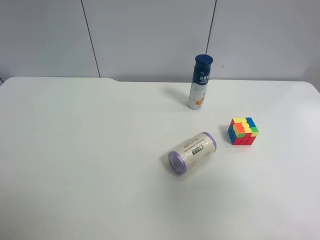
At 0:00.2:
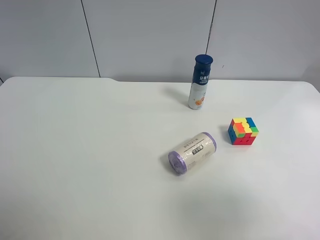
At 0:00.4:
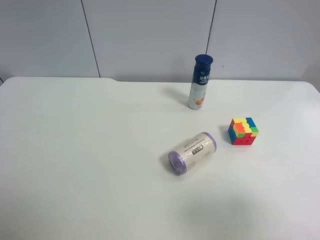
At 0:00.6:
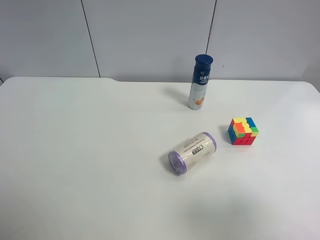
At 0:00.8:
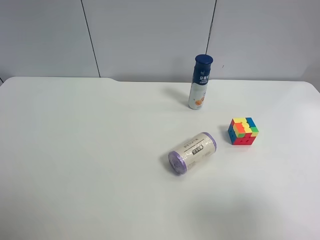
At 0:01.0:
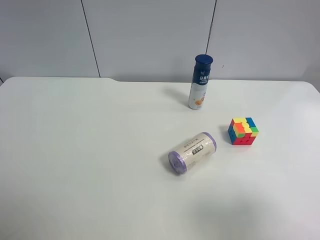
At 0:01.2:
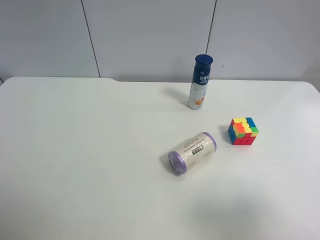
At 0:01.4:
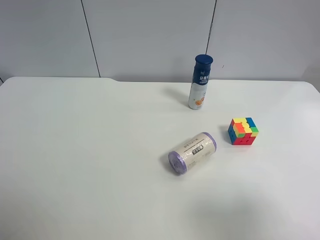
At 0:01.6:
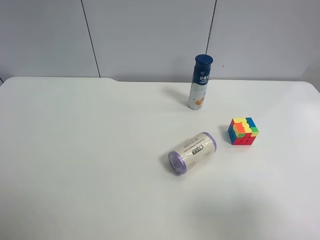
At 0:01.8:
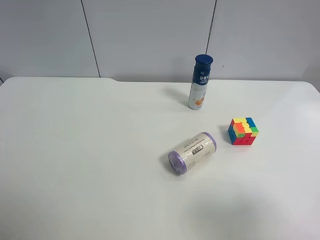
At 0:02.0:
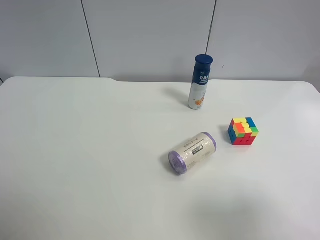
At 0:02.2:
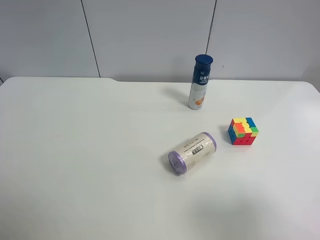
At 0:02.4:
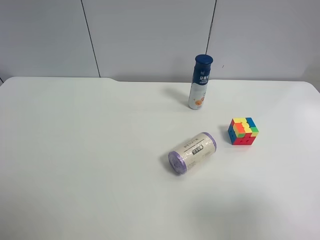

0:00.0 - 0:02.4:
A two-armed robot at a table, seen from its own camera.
Task of the whole recording: use the left gripper to pick up the item and transfer it from the left gripper to the right gripper.
0:00.0 - 0:01.2: The right gripper is displaced downward by roughly 10 cm.
0:01.2 - 0:02.4: Both grippers stay about where they are.

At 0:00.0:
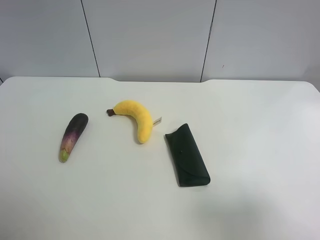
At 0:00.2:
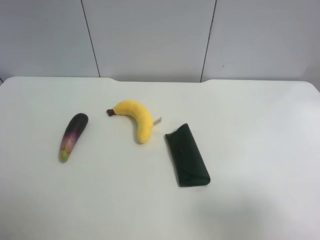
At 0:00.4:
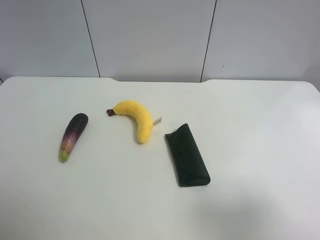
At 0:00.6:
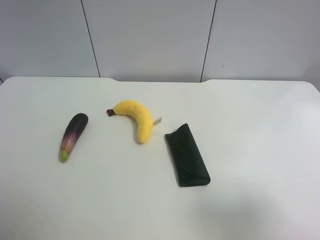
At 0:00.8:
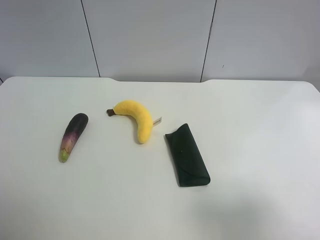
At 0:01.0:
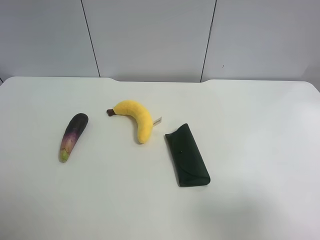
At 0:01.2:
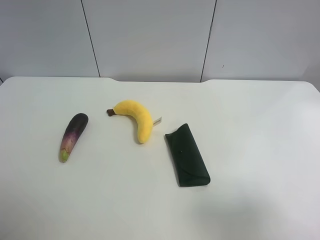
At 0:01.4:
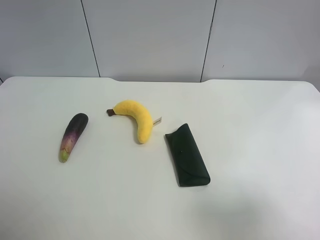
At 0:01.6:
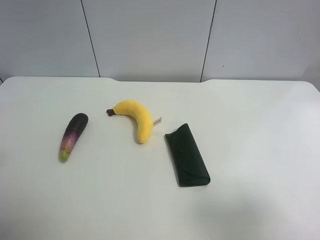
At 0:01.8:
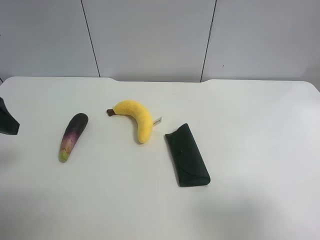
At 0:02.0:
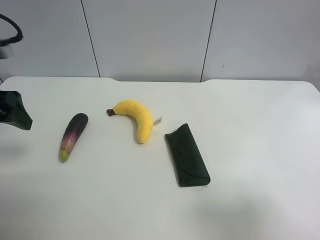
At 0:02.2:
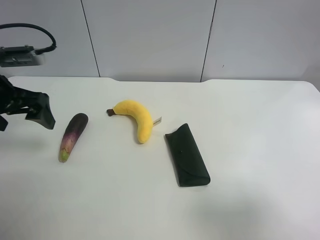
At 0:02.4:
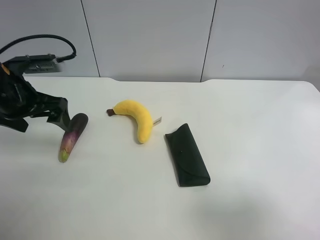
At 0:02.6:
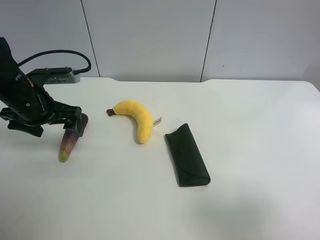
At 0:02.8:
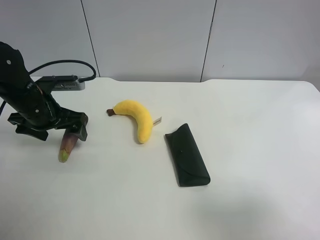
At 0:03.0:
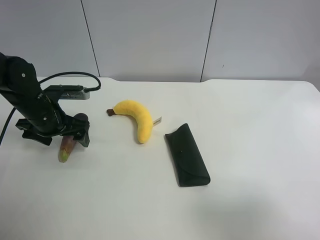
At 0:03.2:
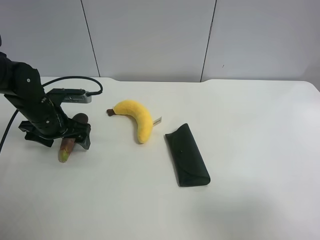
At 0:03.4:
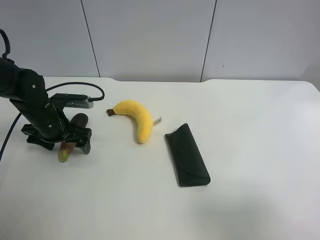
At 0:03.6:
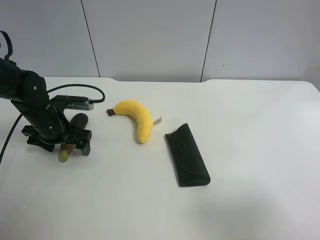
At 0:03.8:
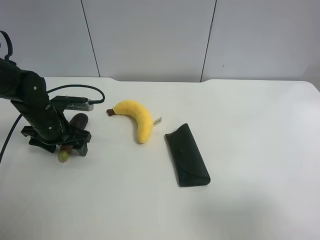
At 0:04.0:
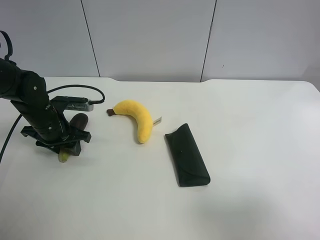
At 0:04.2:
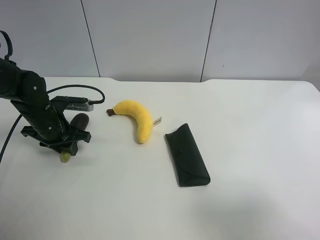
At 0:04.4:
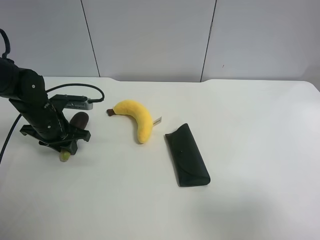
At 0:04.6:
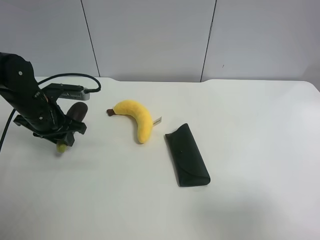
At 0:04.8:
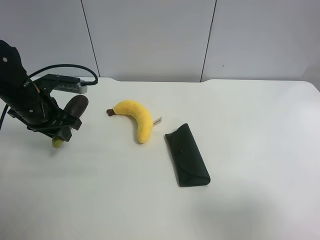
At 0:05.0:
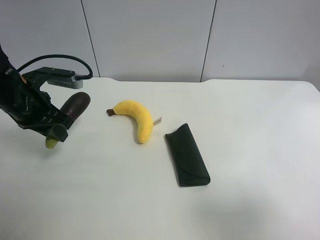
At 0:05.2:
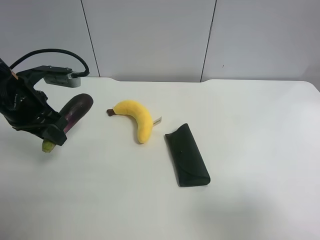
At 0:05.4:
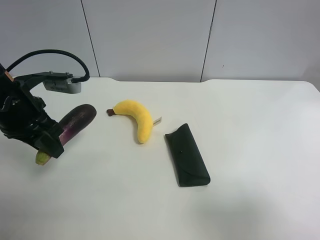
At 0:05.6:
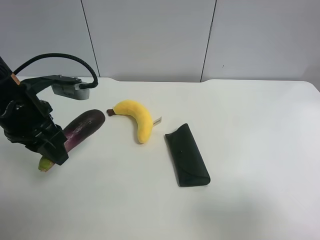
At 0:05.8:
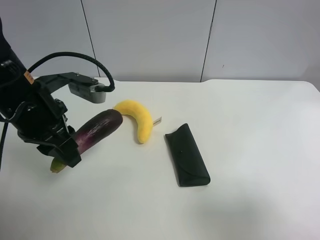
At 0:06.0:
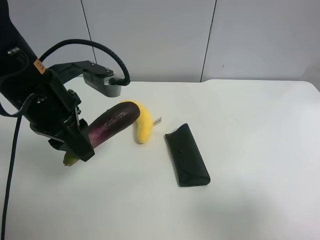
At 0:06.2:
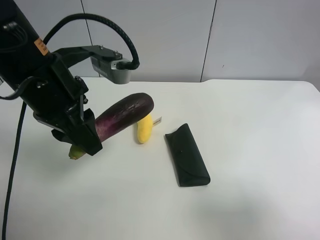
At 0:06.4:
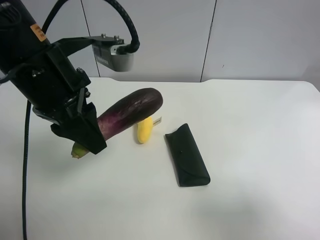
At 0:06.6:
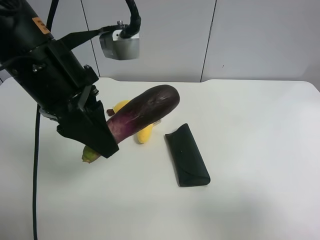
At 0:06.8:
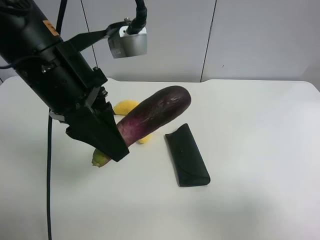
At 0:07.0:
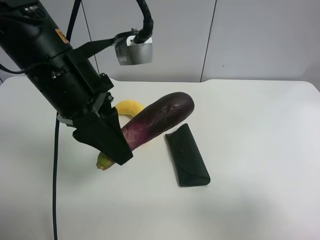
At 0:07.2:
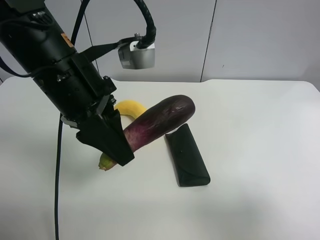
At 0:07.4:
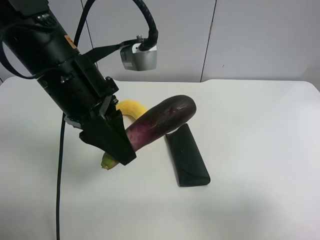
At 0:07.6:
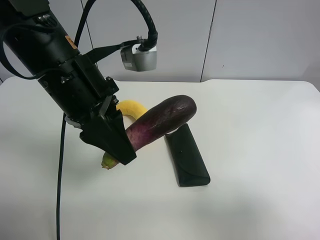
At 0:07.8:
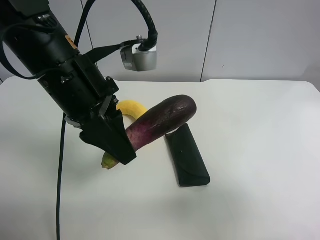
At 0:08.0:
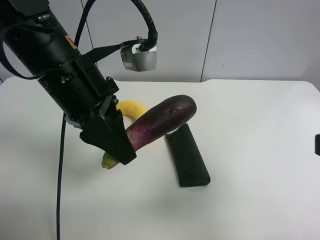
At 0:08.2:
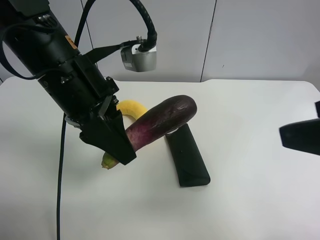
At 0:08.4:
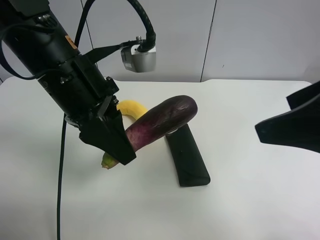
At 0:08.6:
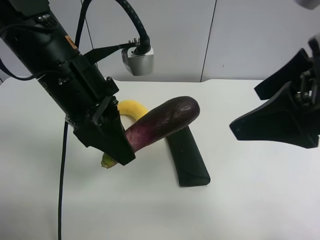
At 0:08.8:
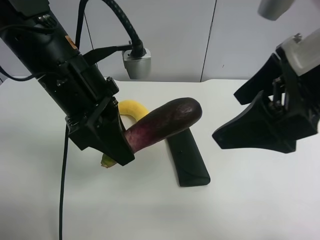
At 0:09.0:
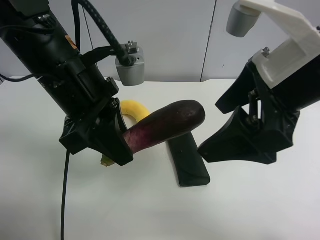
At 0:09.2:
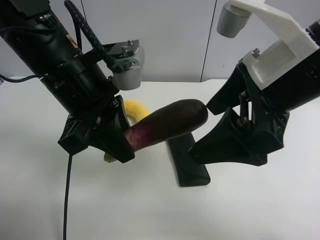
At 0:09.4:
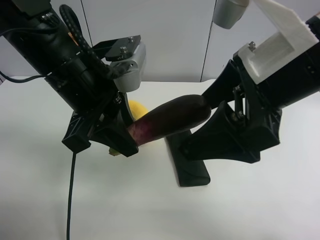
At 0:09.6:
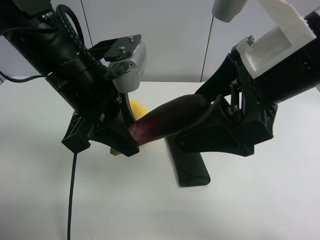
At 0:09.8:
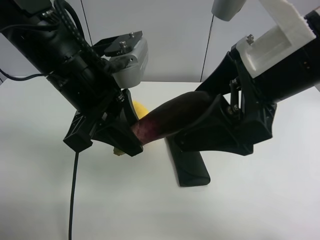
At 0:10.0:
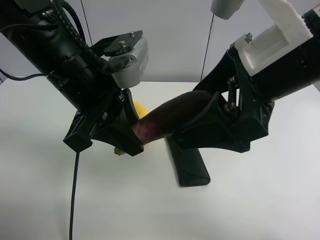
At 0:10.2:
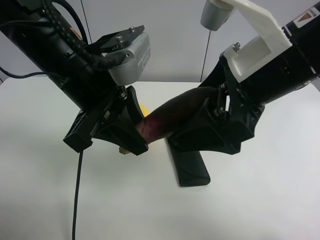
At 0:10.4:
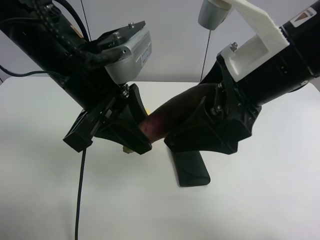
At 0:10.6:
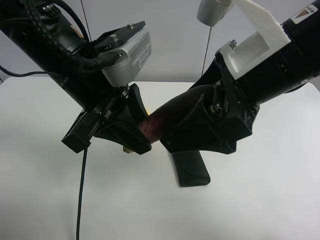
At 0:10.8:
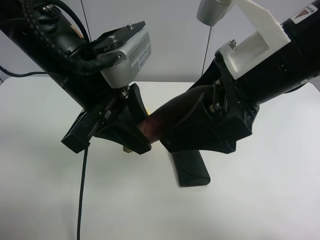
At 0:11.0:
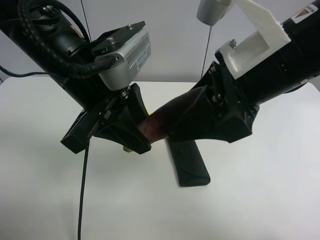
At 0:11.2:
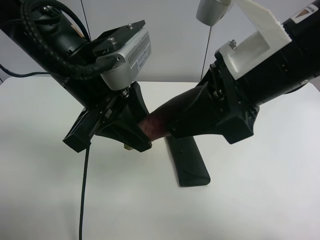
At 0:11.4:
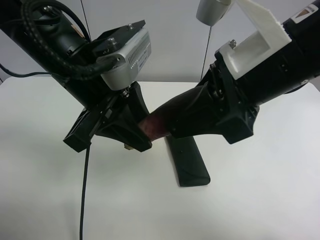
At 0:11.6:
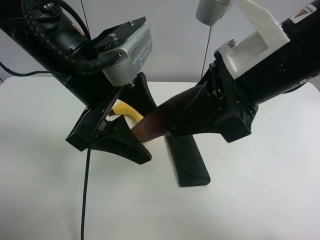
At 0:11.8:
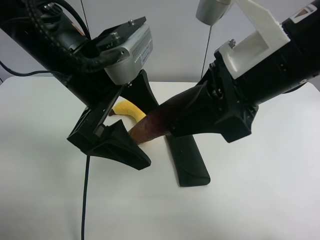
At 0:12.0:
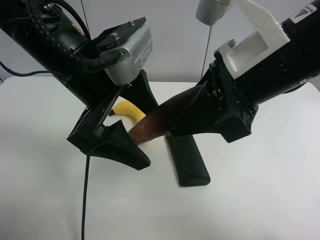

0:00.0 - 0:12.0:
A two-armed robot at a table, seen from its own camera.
Task of the whole recording: use the left gripper to pick up the item and transfer it from the left gripper to the right gripper.
0:01.6 - 0:03.0: The left gripper travels downward and forward by approximately 25 cm.
0:03.0 - 0:04.4: The left gripper closes.
0:04.4 - 0:06.0: The left gripper heads upward, backward and to the right, covering about 20 cm.
0:07.6 - 0:09.0: The right gripper goes roughly 20 cm forward and to the left.
0:10.4 - 0:12.0: The right gripper closes, while the left gripper opens its fingers.

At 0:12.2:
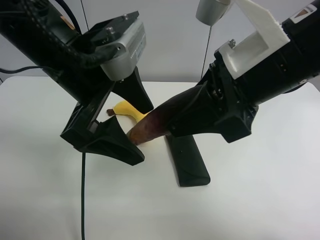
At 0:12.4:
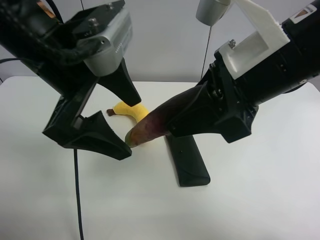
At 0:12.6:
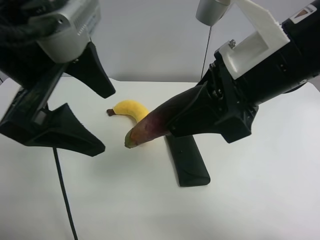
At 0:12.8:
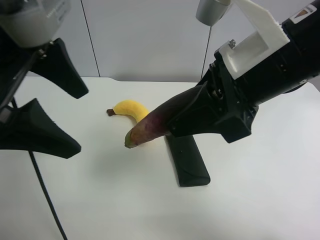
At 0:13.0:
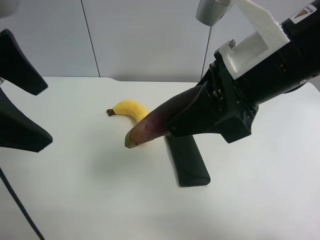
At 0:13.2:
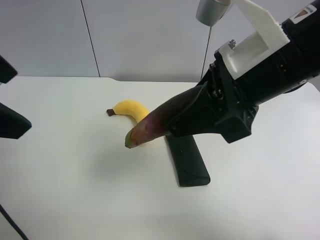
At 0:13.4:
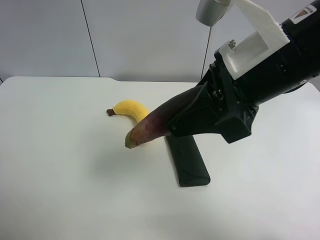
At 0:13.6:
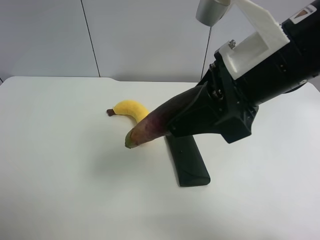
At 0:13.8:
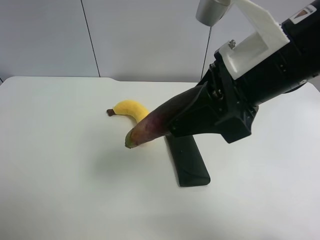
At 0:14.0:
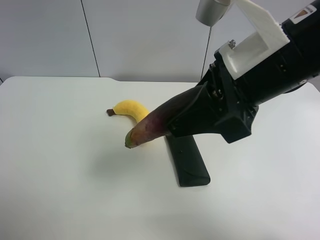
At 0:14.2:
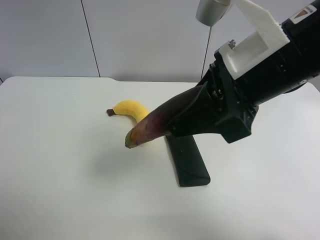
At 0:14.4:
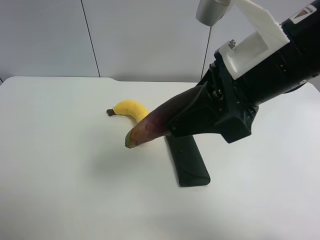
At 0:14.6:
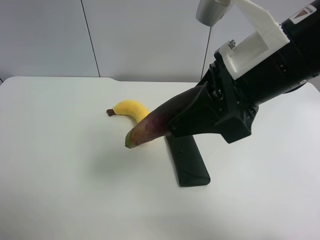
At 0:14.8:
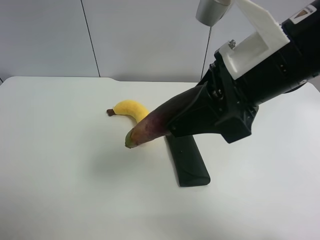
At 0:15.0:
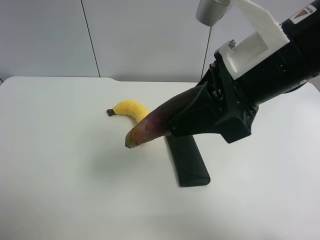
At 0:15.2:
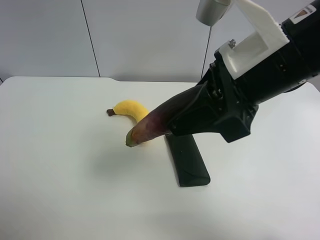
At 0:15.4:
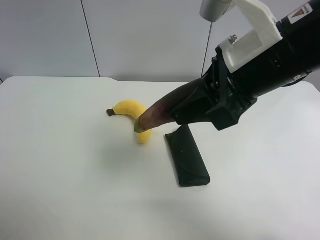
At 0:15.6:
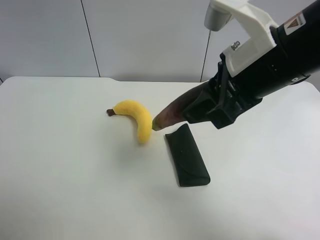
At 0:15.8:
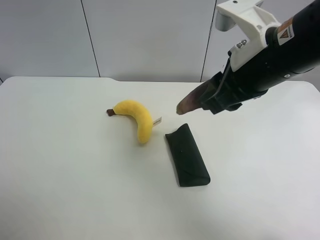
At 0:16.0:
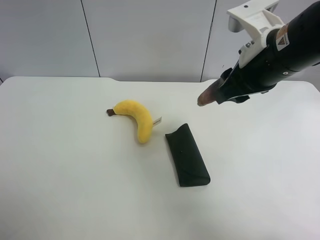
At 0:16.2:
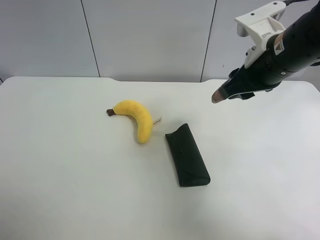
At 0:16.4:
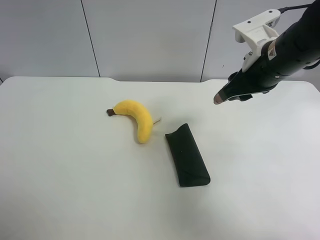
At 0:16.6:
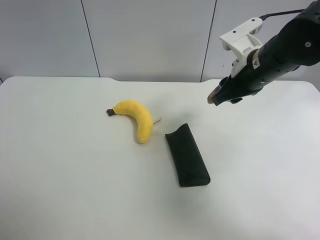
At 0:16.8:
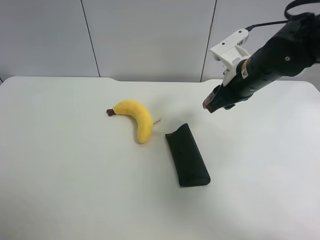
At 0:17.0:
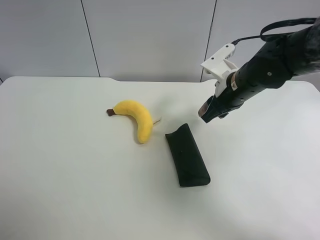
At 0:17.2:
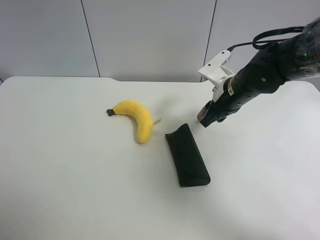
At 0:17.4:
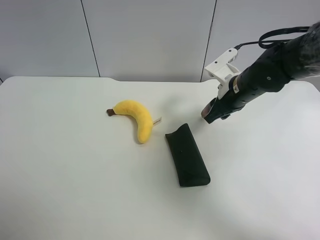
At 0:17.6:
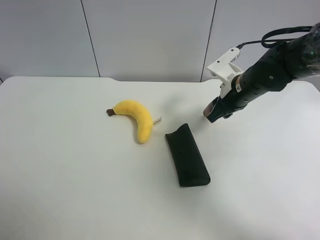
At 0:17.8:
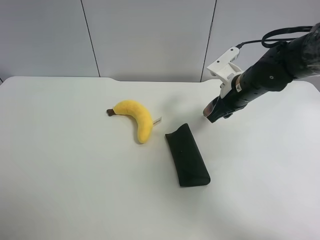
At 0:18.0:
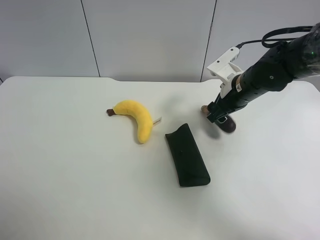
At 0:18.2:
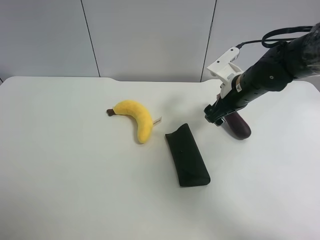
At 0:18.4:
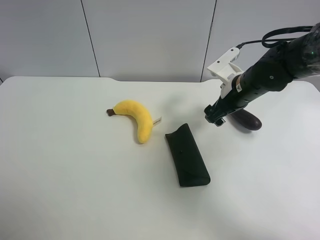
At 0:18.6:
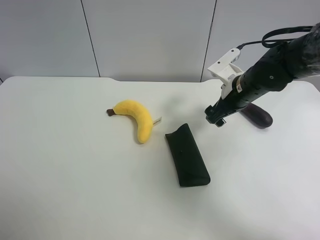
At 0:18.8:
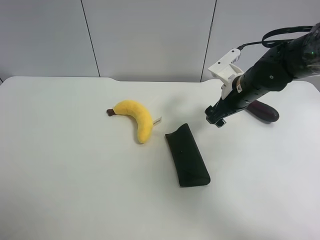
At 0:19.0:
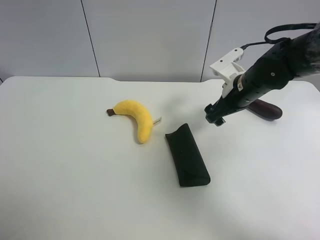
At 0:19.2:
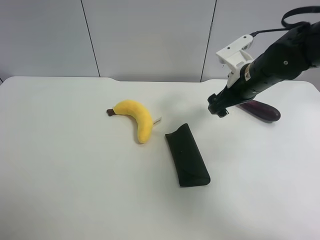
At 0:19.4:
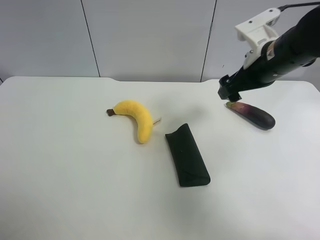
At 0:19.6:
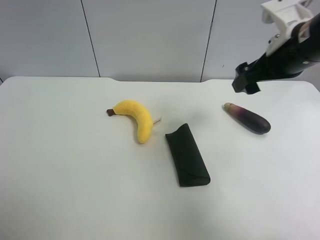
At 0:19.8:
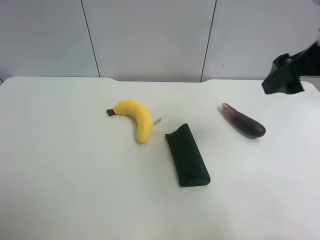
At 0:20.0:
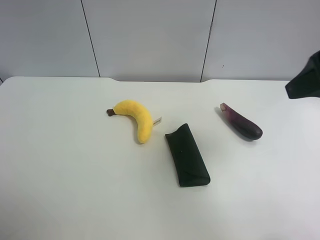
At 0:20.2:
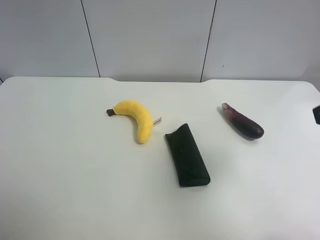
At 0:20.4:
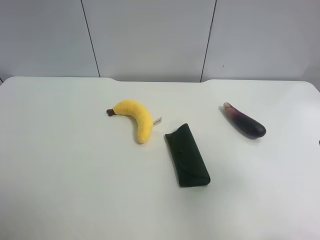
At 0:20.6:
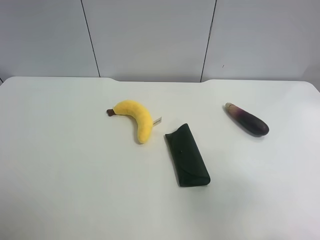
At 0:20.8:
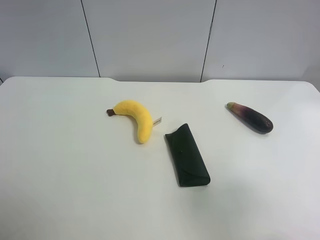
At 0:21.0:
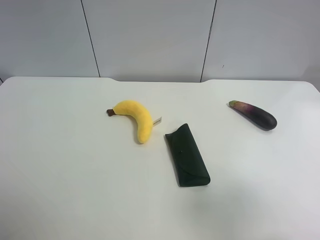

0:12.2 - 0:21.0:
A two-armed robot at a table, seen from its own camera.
Task of the whole recording: use the left gripper to pick up the item and transfer it from the left gripper to the right gripper.
0:12.2 - 0:13.6: The left gripper heads to the left and backward, covering roughly 20 cm.
0:15.2 - 0:16.6: The right gripper goes approximately 15 cm forward, downward and to the right.
0:16.6 - 0:18.0: The right gripper travels downward by about 5 cm, and opens its fingers.
0:18.0 - 0:19.6: The right gripper heads upward and backward, covering about 15 cm.
0:19.6 - 0:21.0: The right gripper heads backward, covering approximately 25 cm.
